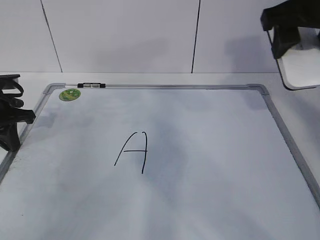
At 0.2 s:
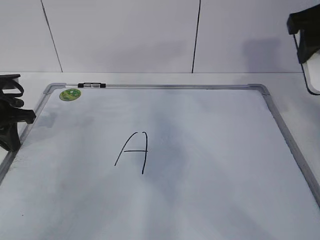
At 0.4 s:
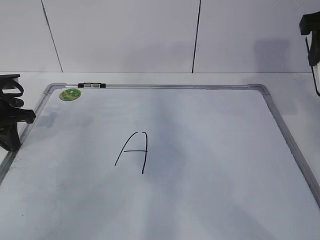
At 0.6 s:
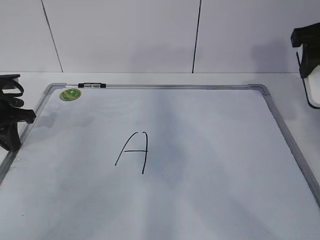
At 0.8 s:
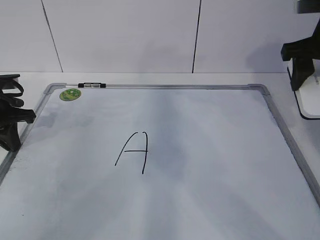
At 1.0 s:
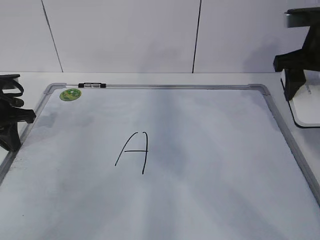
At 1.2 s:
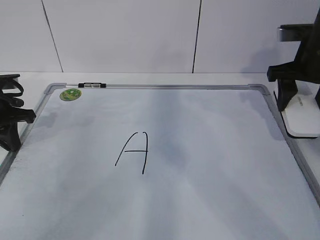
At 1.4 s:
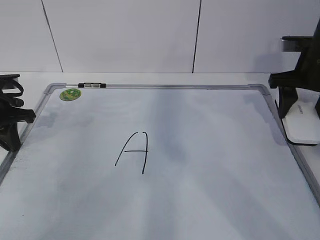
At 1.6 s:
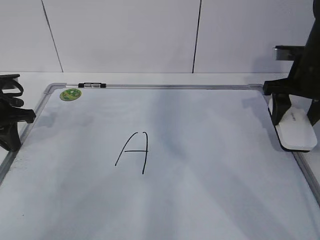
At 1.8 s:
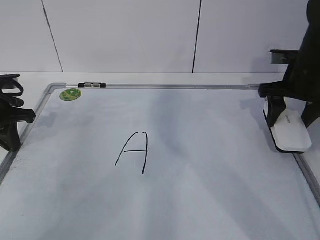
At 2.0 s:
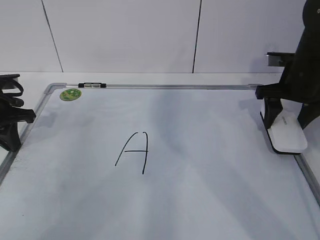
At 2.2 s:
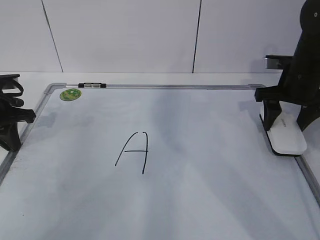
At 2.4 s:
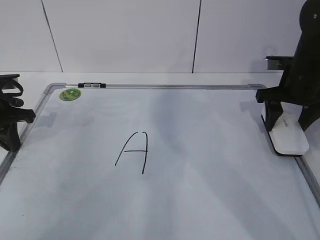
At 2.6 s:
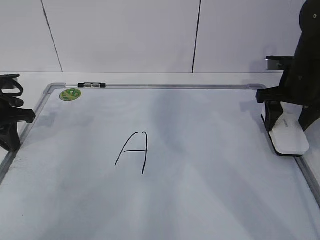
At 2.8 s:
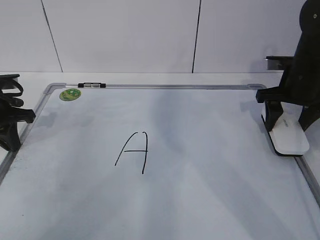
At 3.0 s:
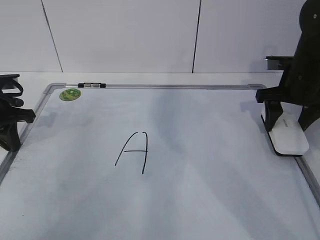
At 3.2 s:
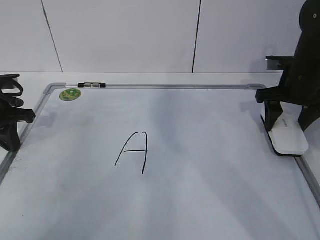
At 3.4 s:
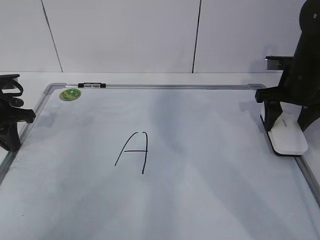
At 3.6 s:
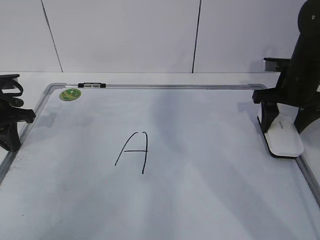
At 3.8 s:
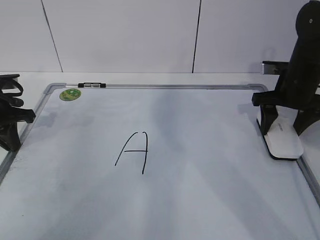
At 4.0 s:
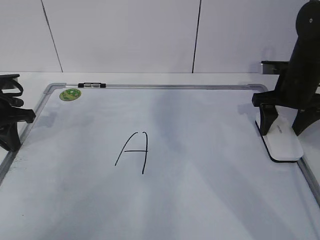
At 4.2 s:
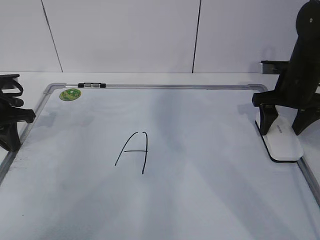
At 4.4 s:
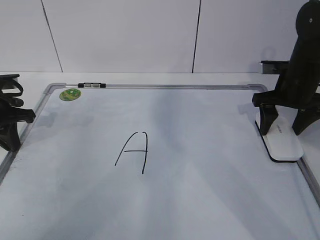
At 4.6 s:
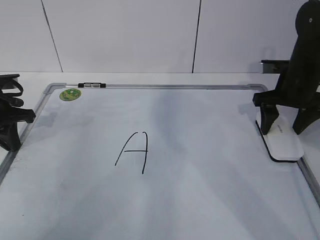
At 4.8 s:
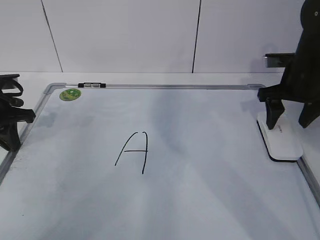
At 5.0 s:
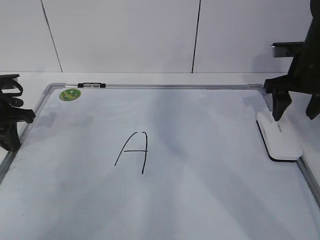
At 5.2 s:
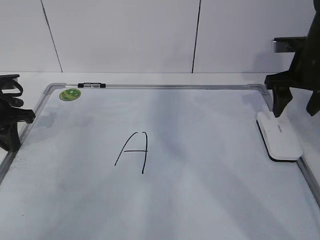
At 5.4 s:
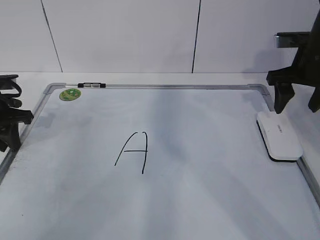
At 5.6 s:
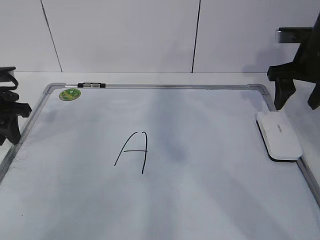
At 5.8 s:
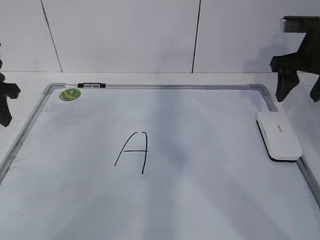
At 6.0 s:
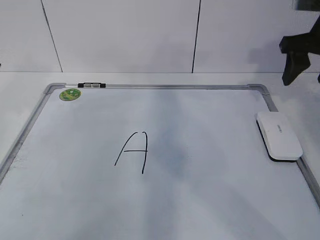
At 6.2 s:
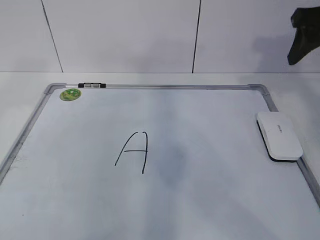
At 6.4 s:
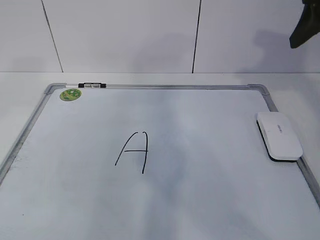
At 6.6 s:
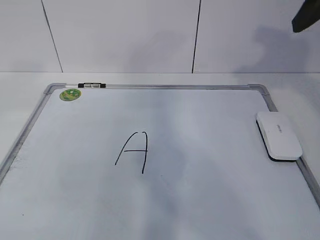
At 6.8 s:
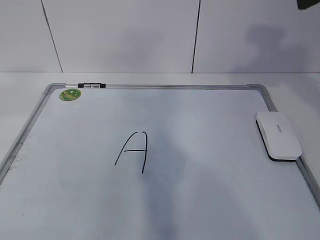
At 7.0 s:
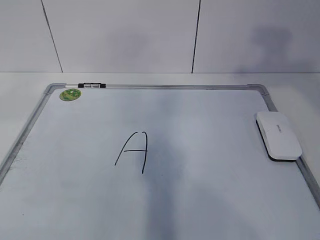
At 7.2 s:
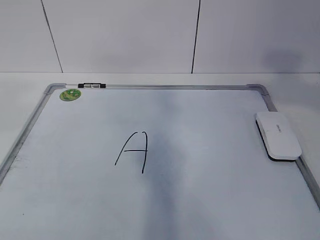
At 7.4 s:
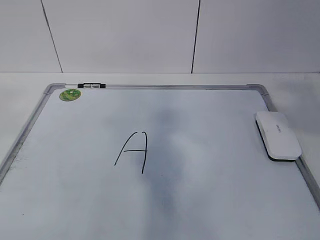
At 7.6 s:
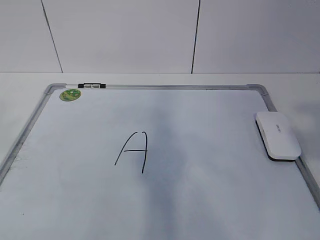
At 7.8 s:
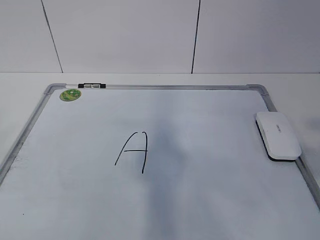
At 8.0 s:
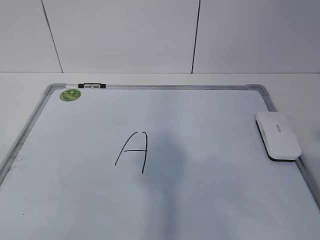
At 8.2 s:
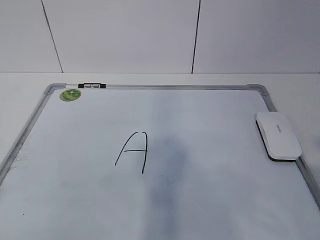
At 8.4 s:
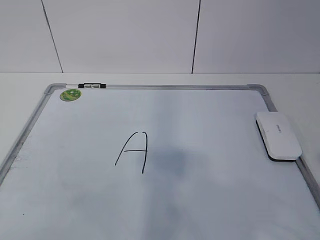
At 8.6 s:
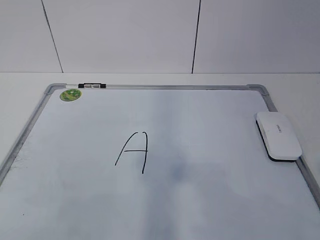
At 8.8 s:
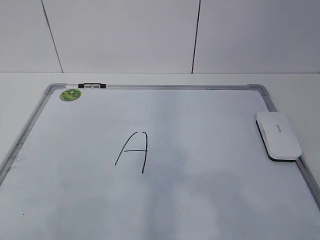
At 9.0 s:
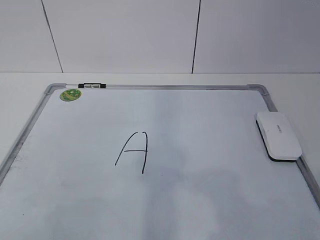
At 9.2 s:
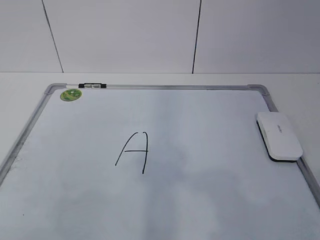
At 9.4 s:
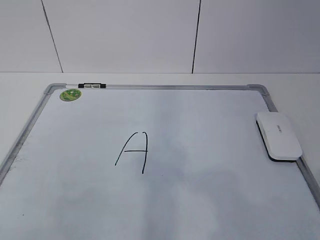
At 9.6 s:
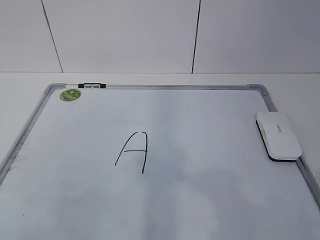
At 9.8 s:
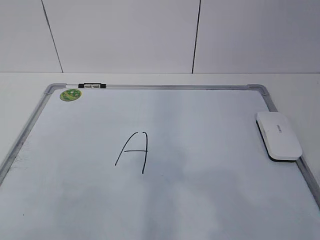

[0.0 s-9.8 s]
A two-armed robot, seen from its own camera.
Task of the whole recording: pick up the eraser on the blackboard and erase the letter "a".
0.0 to 1.4 s: The right gripper shifts roughly 15 cm downward, to the right and forward.
1.4 to 2.8 s: There are only small adjustments of the grippers.
2.8 to 4.2 s: The right gripper opens its fingers.
4.2 to 5.6 s: The right gripper is displaced upward by about 5 cm; the left gripper opens its fingers.
5.6 to 7.0 s: Both grippers travel together upward and backward, about 30 cm.
7.0 to 8.4 s: The two grippers go about 20 cm backward and downward.

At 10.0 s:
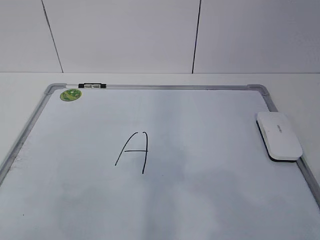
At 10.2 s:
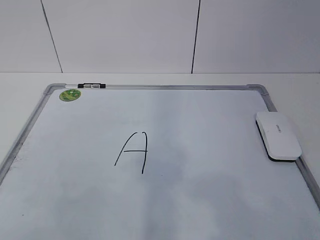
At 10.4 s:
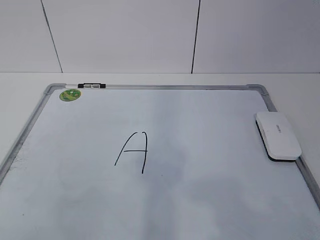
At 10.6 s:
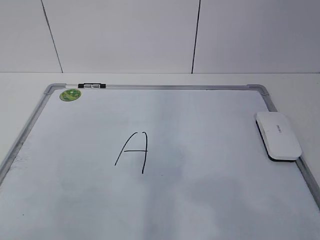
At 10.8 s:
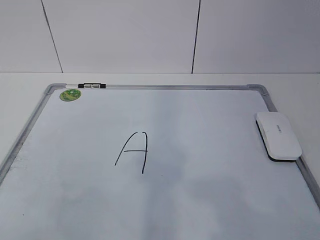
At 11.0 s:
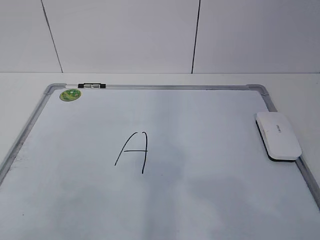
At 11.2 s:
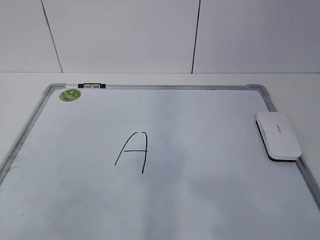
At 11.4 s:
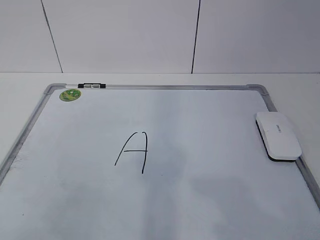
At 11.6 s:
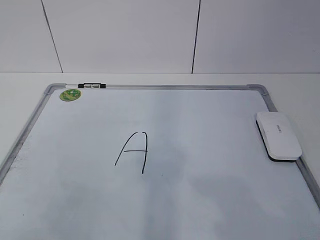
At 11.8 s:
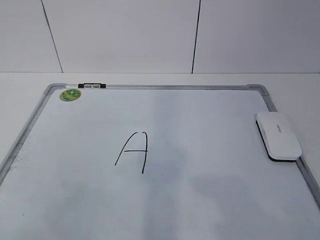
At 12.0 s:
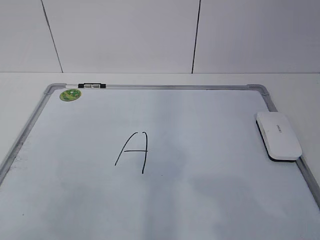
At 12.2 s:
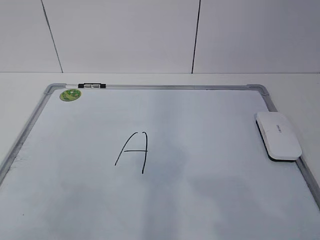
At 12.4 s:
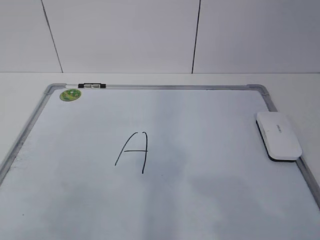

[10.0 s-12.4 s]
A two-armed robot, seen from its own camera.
Task of the whole recording: pick up the eraser on the blackboard and erase the letter "a".
11.2 to 12.4 s: Neither gripper changes place.
